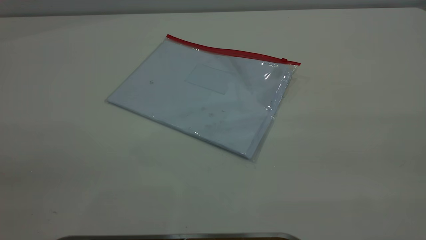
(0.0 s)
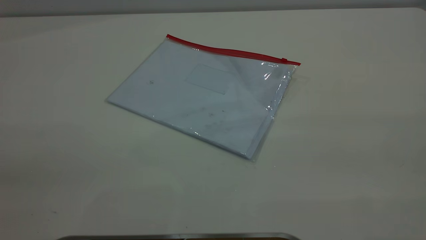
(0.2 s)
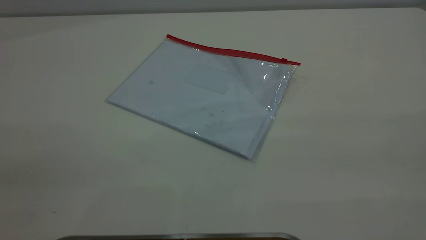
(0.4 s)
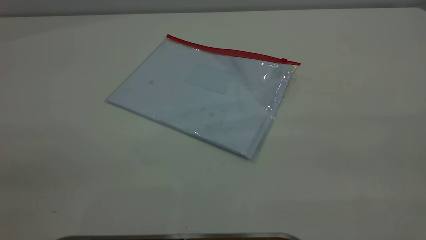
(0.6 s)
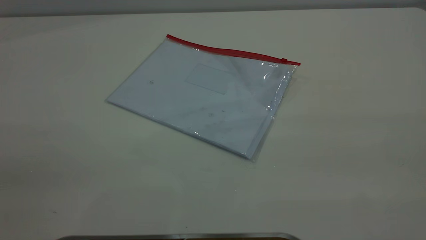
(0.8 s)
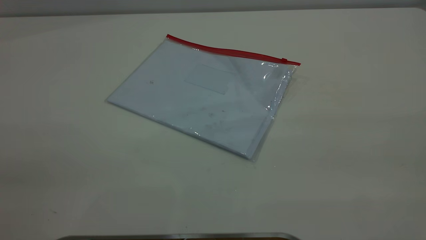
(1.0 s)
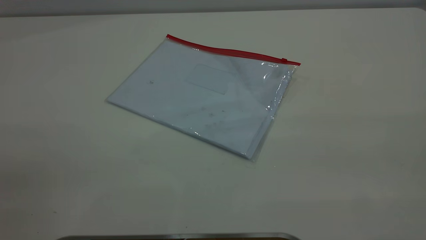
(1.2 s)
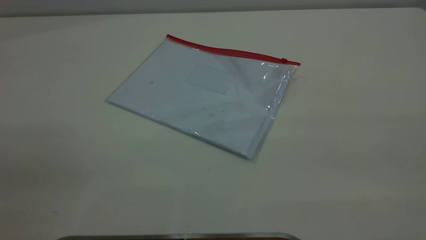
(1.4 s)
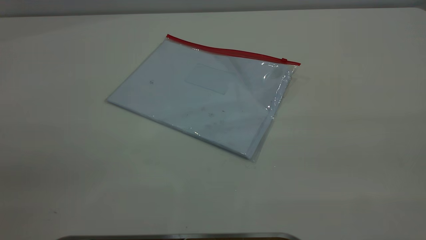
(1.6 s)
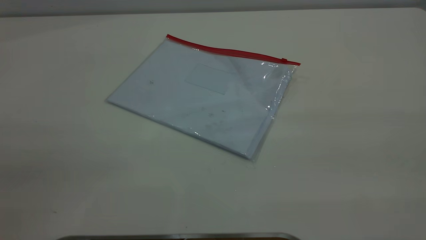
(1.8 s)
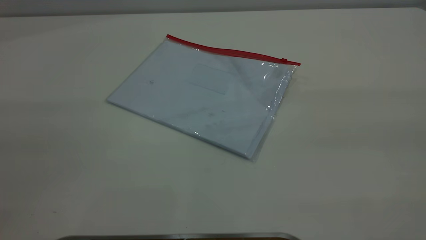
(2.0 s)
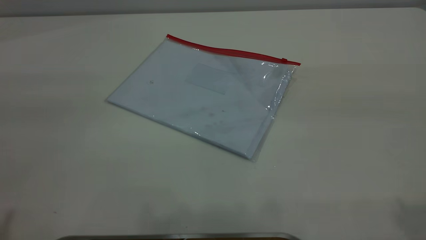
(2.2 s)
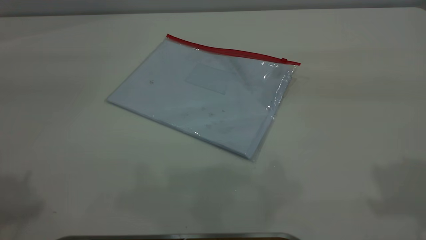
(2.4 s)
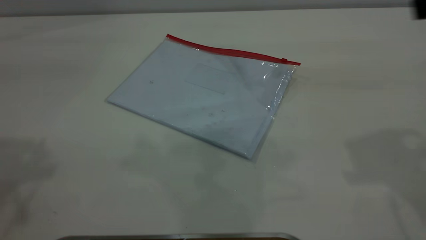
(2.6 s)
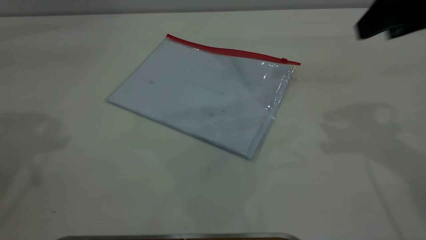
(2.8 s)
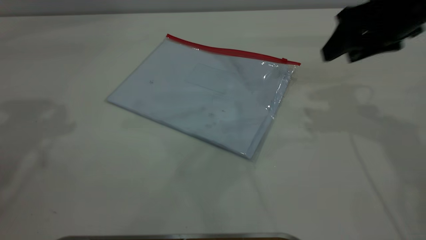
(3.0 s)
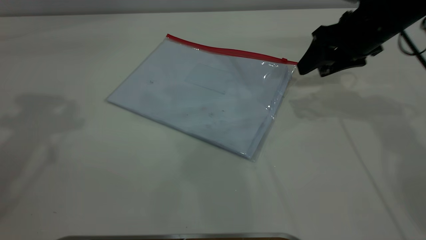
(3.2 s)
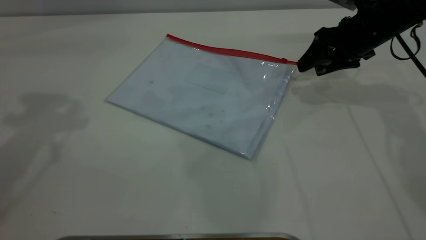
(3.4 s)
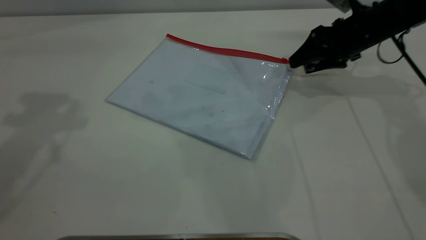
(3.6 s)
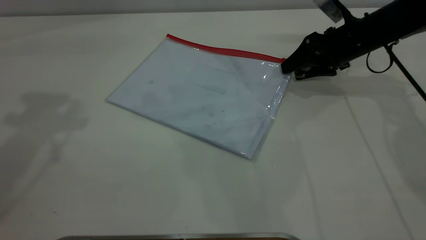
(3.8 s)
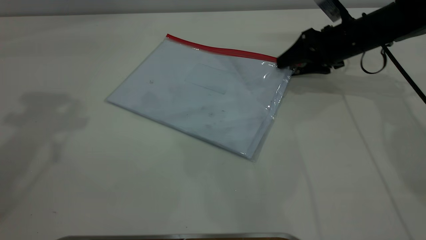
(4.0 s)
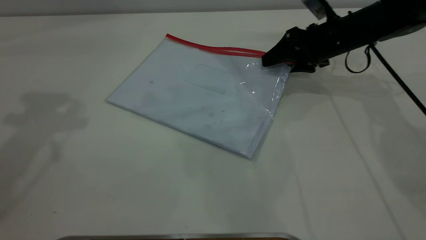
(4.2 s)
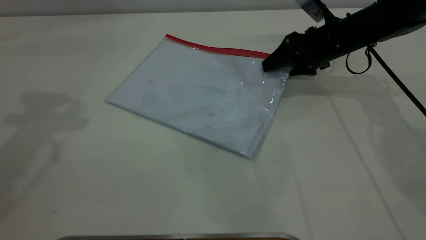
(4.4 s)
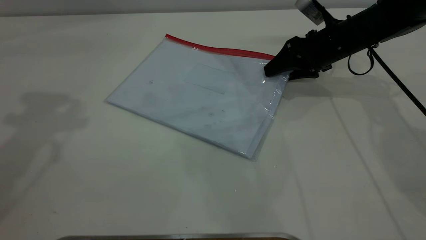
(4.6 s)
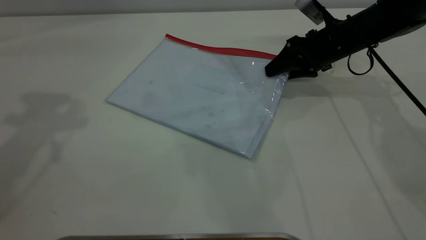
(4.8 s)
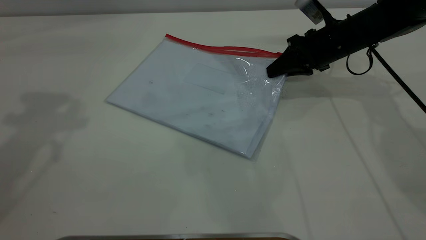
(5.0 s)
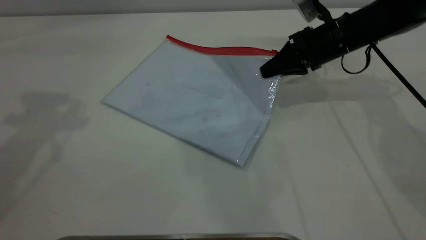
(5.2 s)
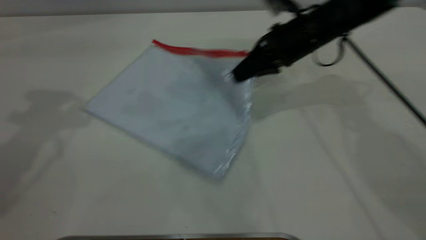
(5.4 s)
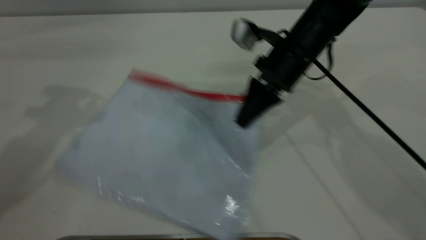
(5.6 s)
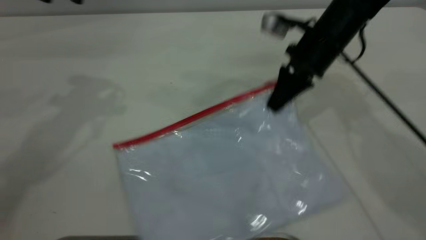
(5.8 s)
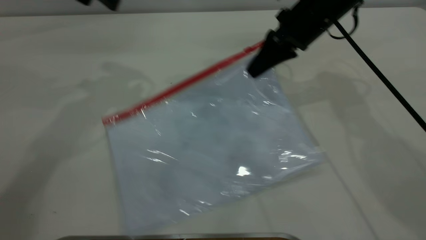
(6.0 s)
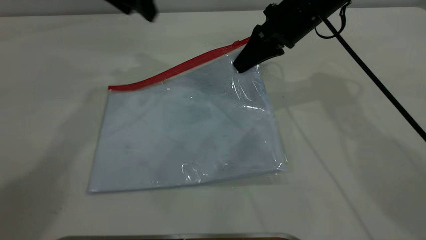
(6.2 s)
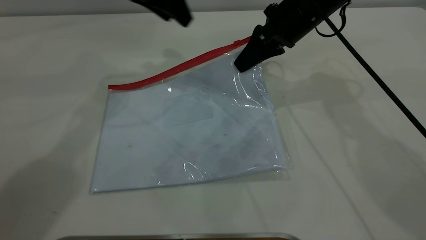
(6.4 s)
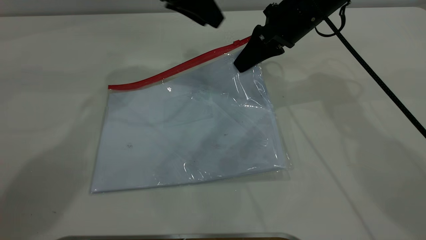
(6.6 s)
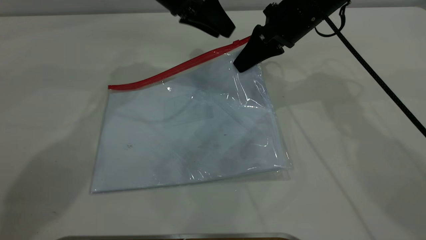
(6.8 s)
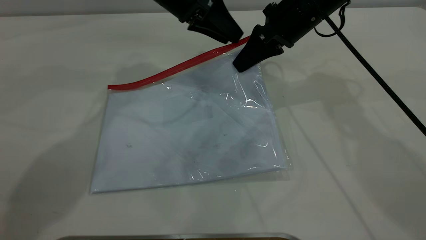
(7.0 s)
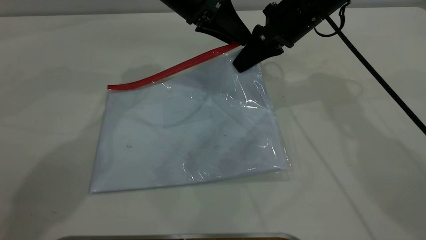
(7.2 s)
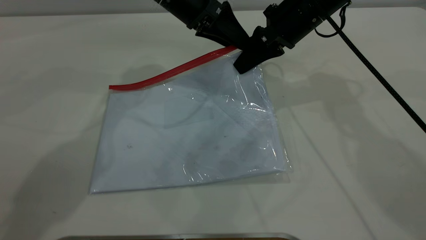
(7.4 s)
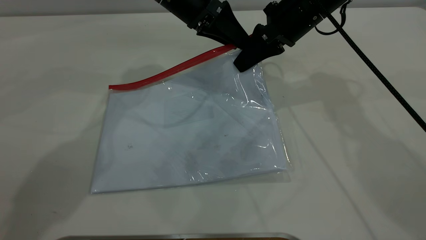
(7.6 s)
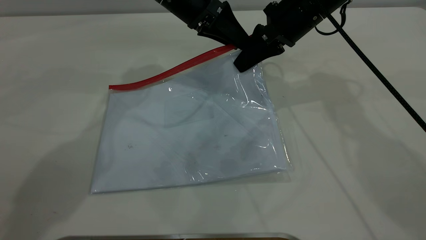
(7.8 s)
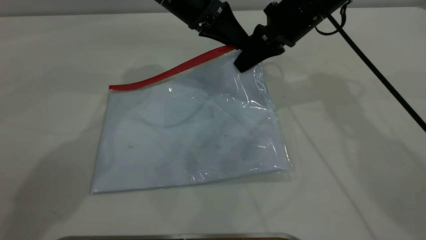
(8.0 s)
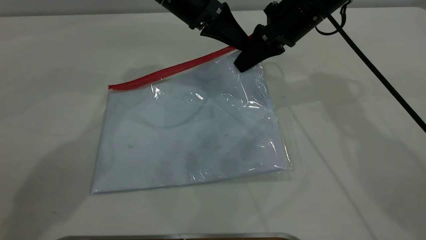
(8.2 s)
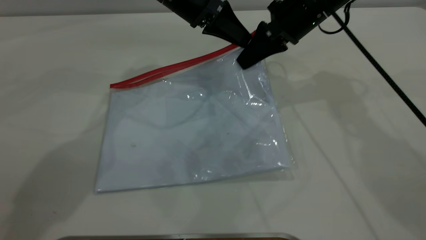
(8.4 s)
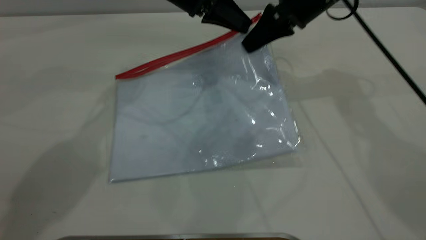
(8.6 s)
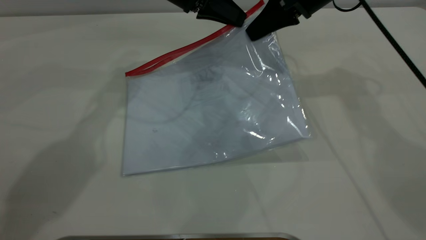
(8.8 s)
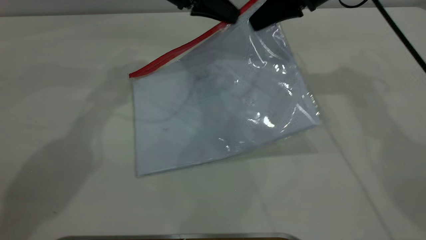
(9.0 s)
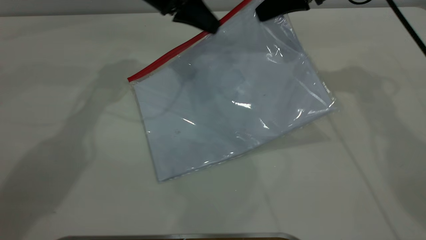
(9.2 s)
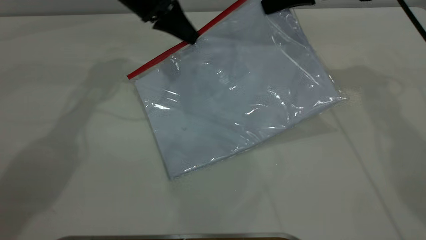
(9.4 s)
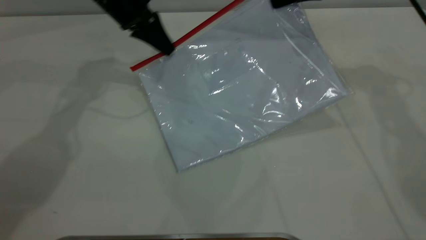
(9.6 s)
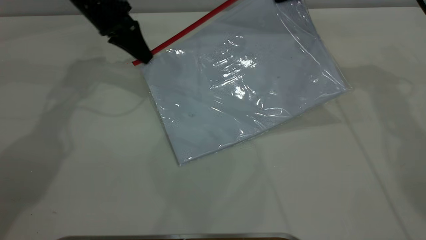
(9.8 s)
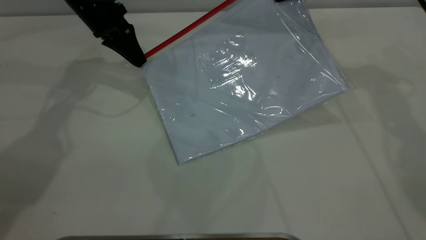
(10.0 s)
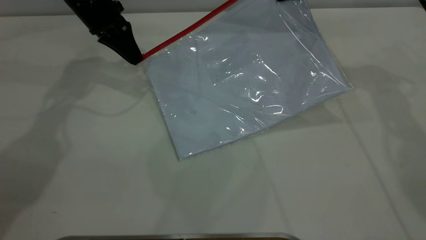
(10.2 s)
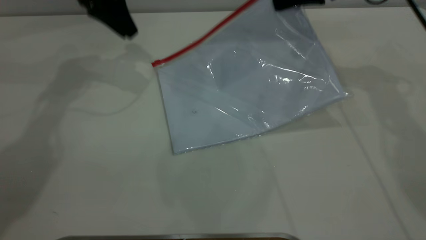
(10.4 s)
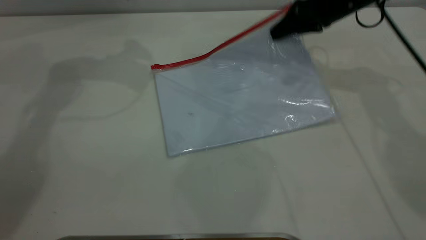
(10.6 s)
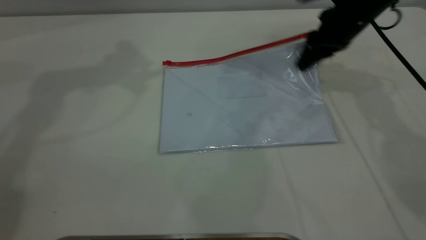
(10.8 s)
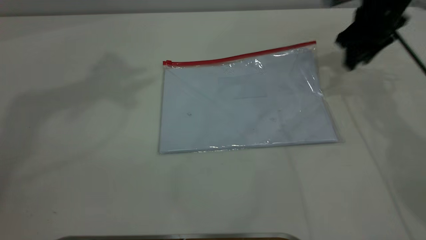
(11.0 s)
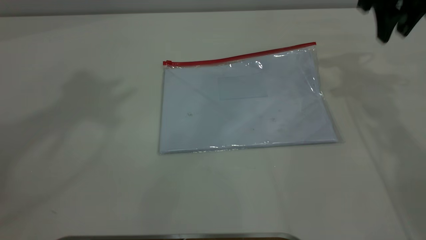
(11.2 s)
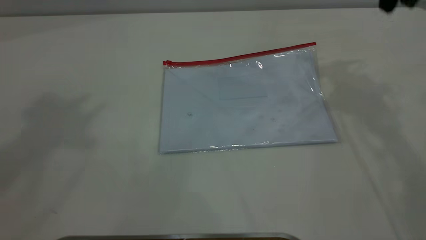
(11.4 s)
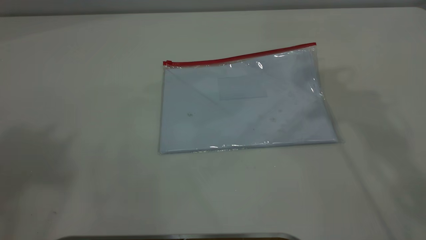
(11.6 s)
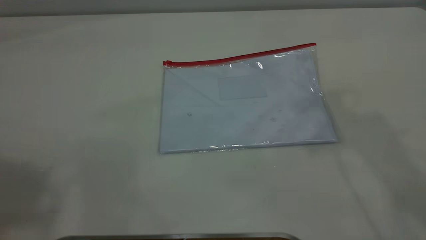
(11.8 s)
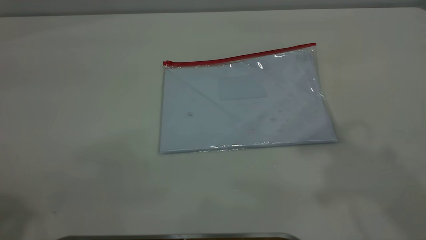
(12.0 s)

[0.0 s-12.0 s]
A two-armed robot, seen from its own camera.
Step, 0.0 to 6.0 s: Pick up the transparent plastic bag with the right gripper.
Step, 6.4 to 10.2 s: Pulling up the zipper on the transparent plastic bag with the left gripper to close it.
Step, 10.6 to 11.2 s: Place the transparent plastic bag.
0.0 to 1.6 s: Neither gripper changes place.
1.6 to 3.0 s: The right gripper goes about 40 cm forward and downward.
3.0 to 4.4 s: The right gripper moves downward and forward, roughly 15 cm.
4.4 to 6.0 s: The left gripper moves to the right, forward and downward, about 15 cm; the right gripper goes some 10 cm upward and to the left, and closes.
6.0 to 7.6 s: The left gripper is displaced to the right and downward by approximately 15 cm.
7.6 to 9.0 s: The left gripper closes its fingers; the right gripper changes place by approximately 5 cm.
9.0 to 10.4 s: The left gripper shifts roughly 10 cm to the left, and opens its fingers.
10.4 to 12.0 s: The left gripper moves backward and upward, about 40 cm. Meanwhile the right gripper heads upward and backward, covering about 35 cm, and opens its fingers.

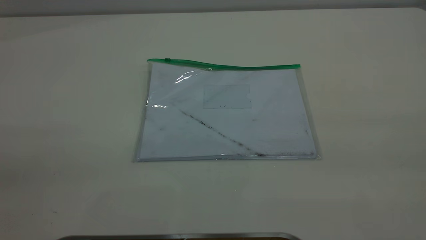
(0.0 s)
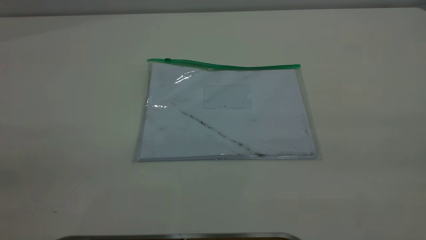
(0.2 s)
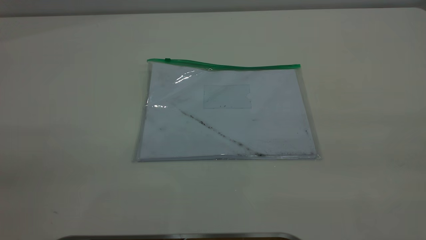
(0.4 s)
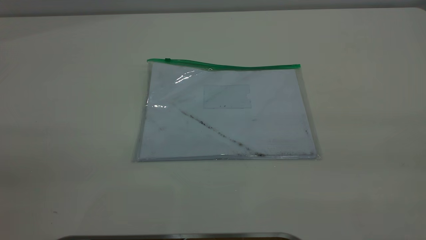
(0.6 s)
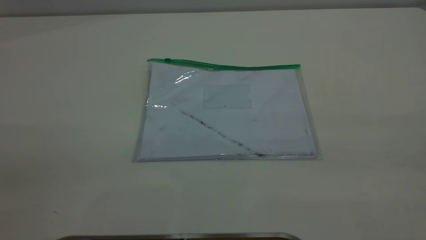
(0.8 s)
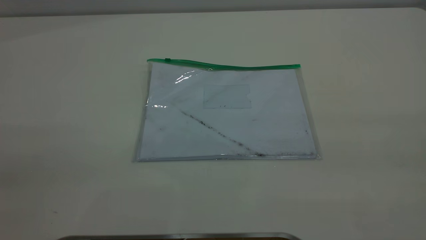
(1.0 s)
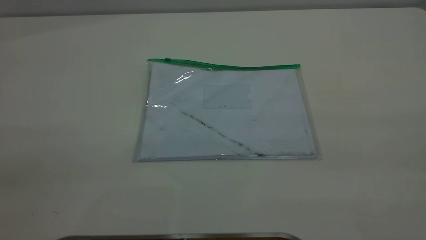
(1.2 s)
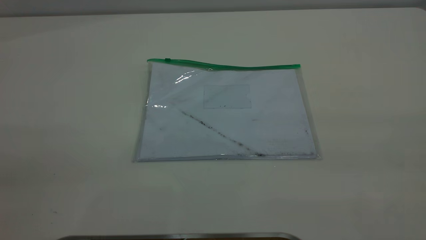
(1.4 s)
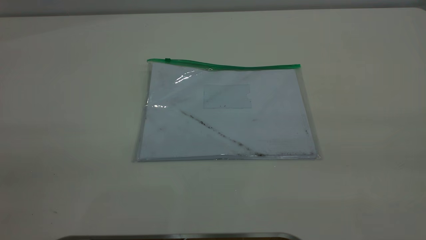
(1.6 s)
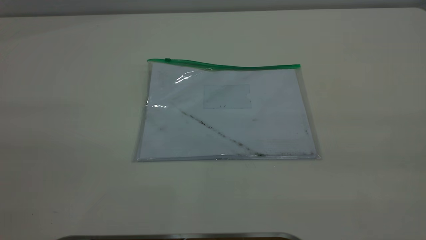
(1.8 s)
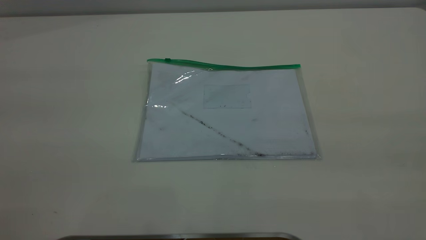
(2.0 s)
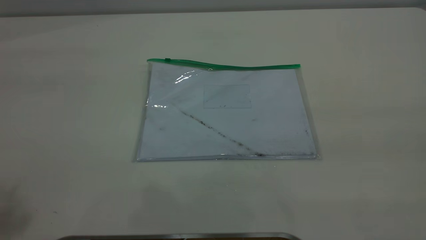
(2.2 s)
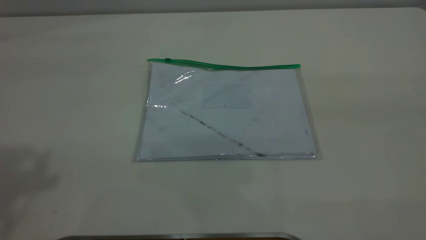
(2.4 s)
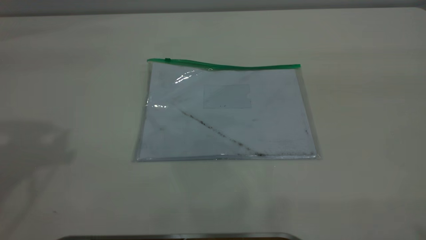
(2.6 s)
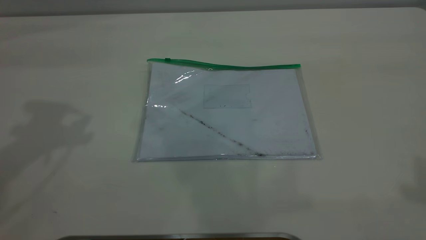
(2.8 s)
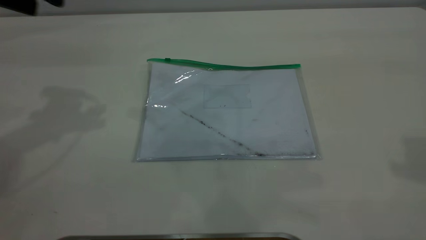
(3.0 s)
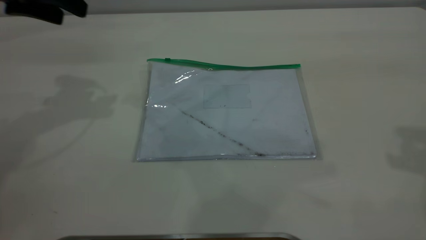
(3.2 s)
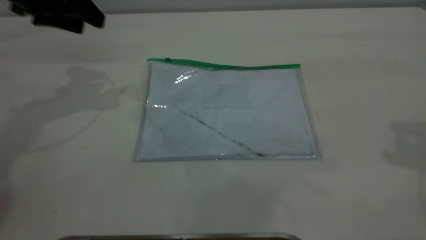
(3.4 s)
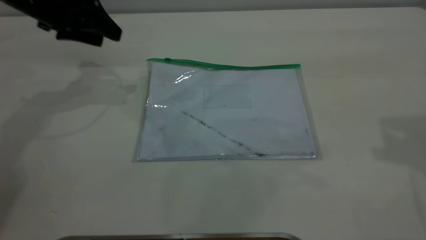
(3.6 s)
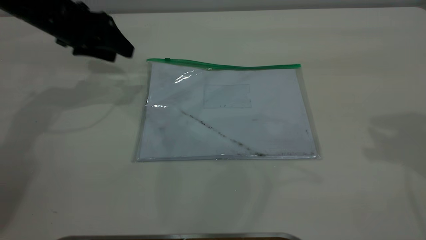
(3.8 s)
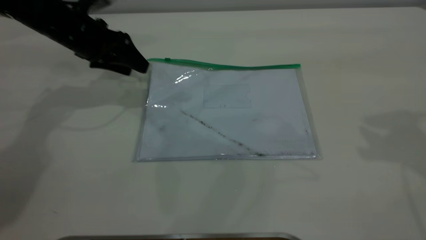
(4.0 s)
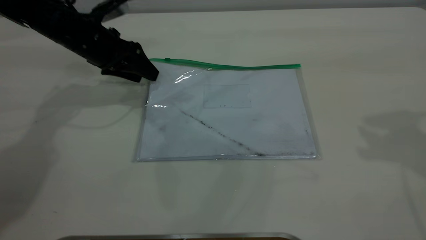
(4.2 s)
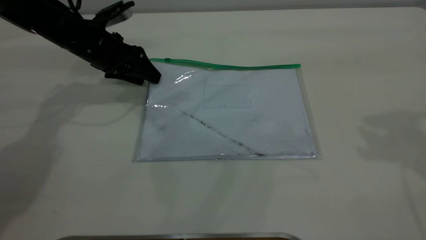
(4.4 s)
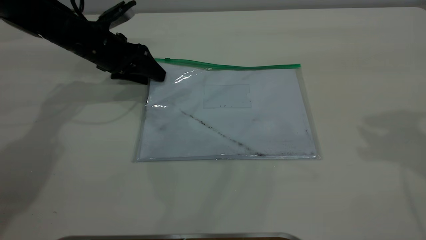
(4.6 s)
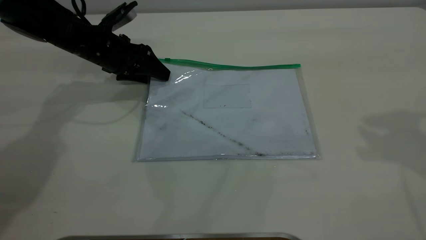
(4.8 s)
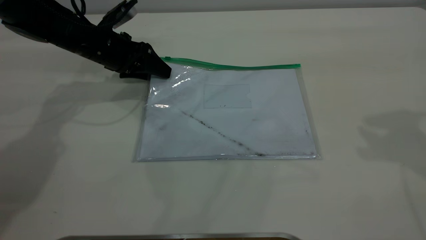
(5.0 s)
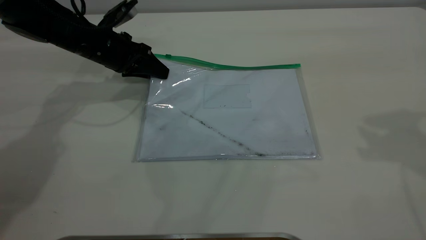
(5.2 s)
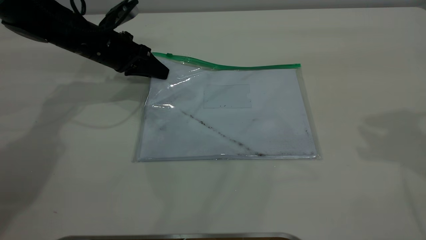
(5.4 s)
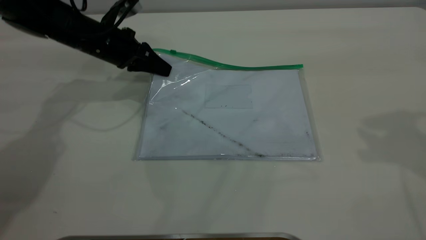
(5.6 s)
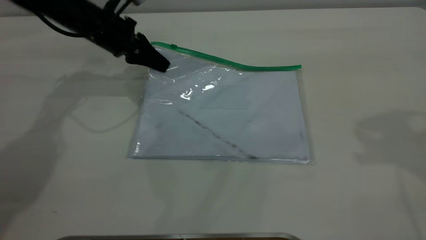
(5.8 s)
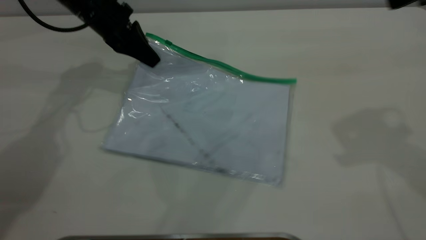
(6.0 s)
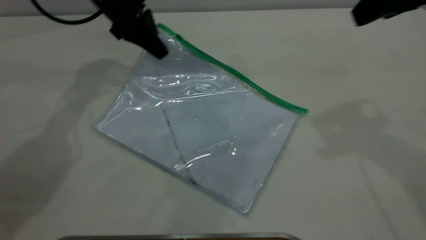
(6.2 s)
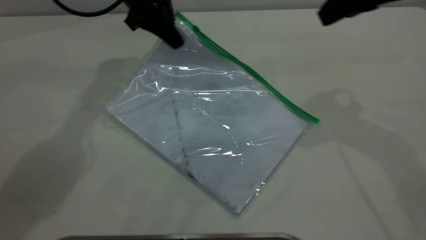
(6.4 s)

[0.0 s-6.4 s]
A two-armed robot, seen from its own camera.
Step, 0.0 to 6.0 s: Pick up the transparent plastic bag with the left gripper.
0.0 to 1.6 s: Both grippers stay put.
1.6 to 3.2 s: The left gripper shifts approximately 40 cm forward.
3.2 to 4.8 s: The left gripper heads downward, covering about 15 cm.
4.8 to 6.4 s: The right gripper is displaced to the left, forward and downward by some 10 cm. Meanwhile the left gripper goes roughly 15 cm upward and to the right, and closes its fingers.
